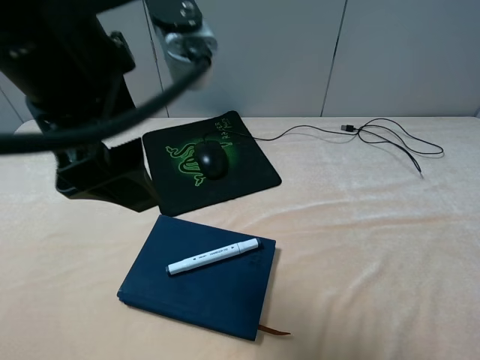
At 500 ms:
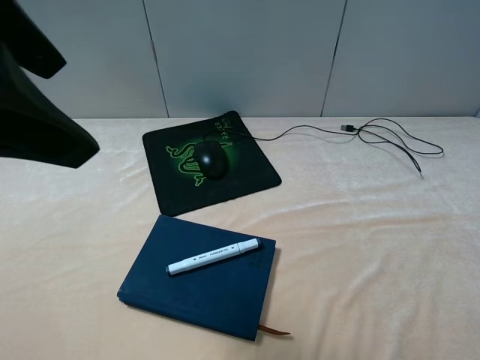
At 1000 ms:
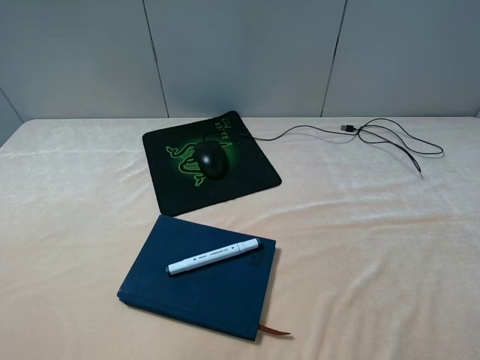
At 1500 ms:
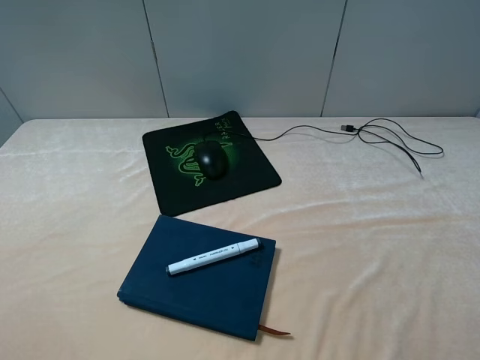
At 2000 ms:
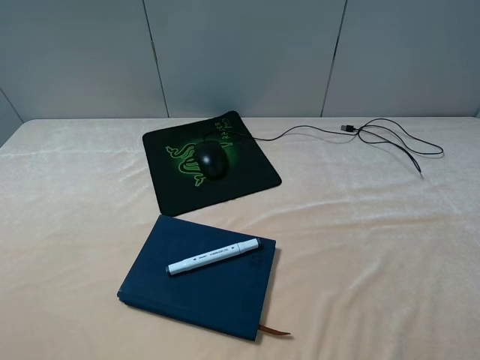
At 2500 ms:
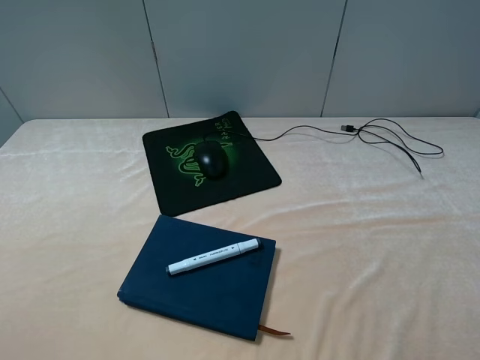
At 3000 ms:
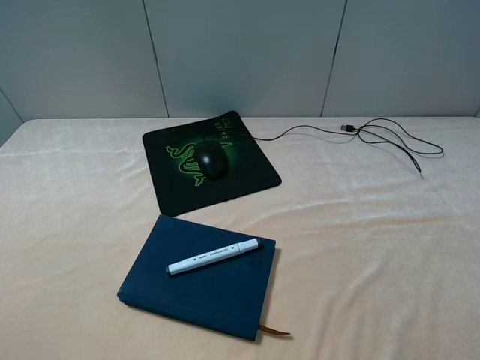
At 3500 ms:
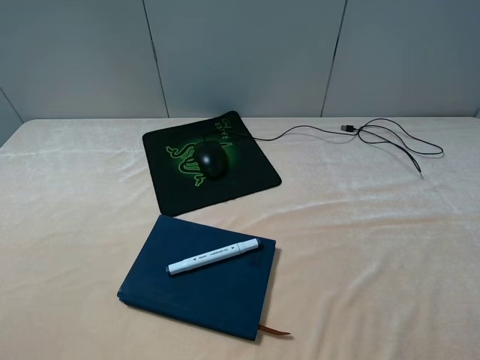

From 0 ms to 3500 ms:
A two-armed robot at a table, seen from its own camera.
From 0 ms to 2000 ms: The left gripper heads to the left and backward, covering approximately 25 cm.
